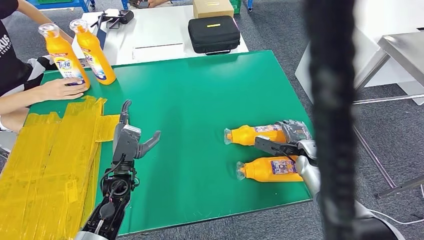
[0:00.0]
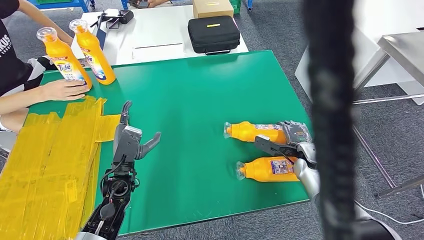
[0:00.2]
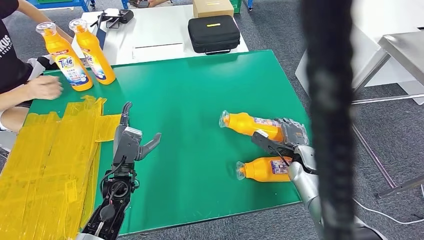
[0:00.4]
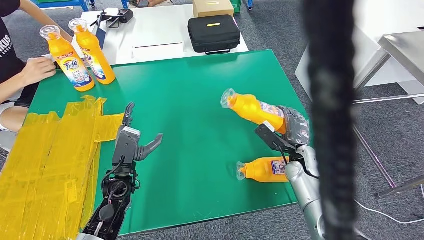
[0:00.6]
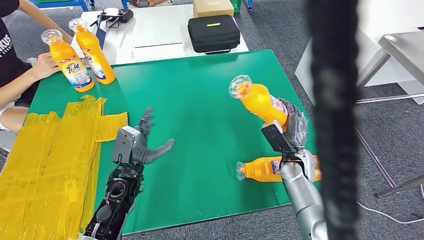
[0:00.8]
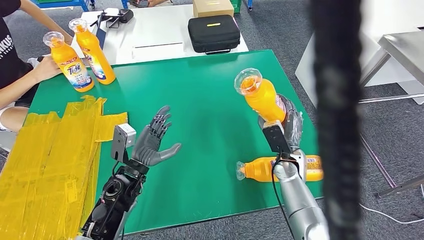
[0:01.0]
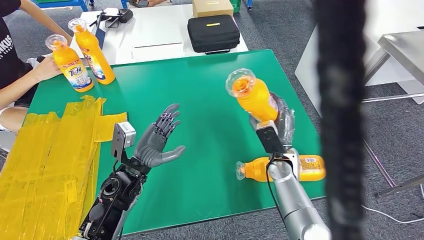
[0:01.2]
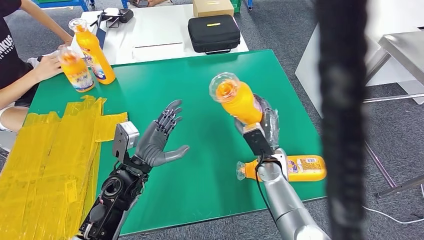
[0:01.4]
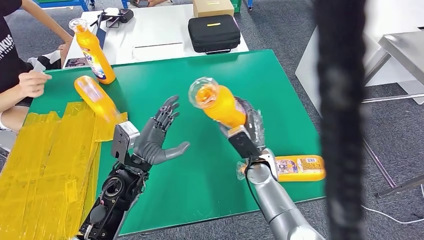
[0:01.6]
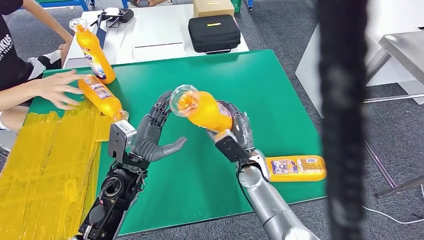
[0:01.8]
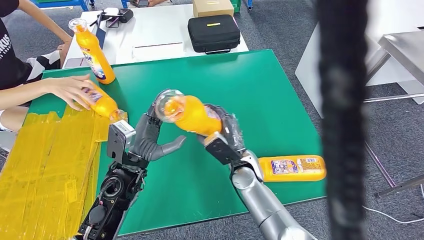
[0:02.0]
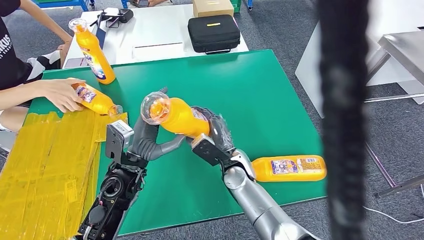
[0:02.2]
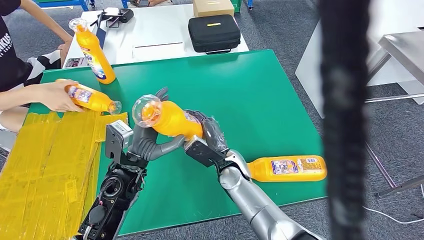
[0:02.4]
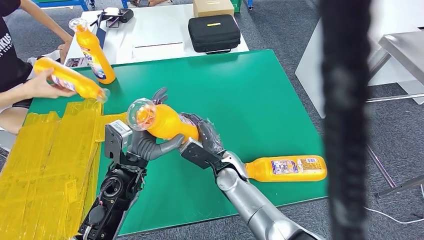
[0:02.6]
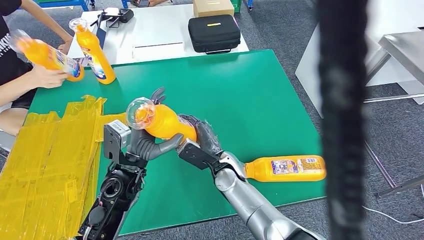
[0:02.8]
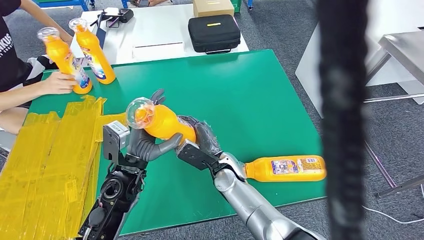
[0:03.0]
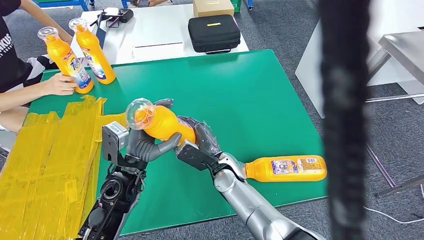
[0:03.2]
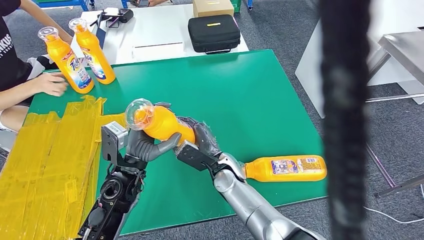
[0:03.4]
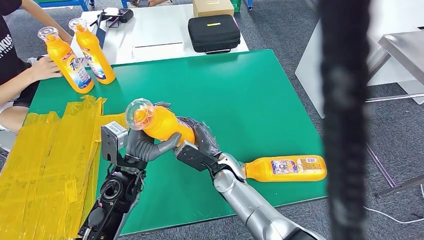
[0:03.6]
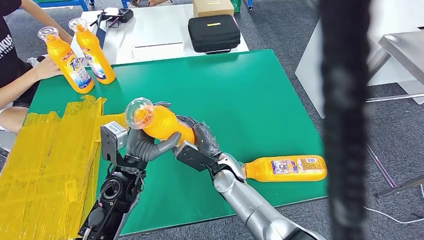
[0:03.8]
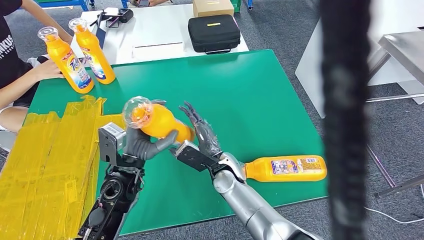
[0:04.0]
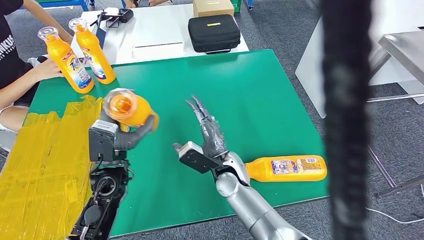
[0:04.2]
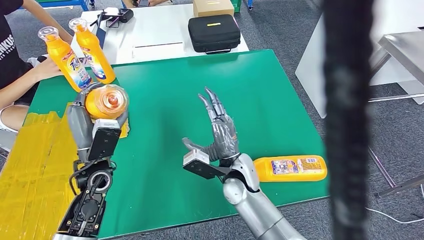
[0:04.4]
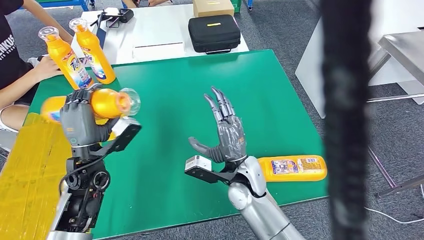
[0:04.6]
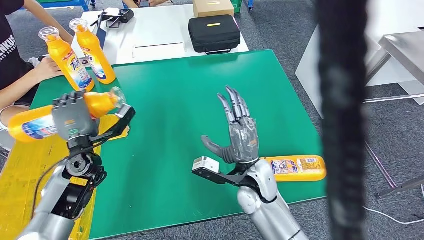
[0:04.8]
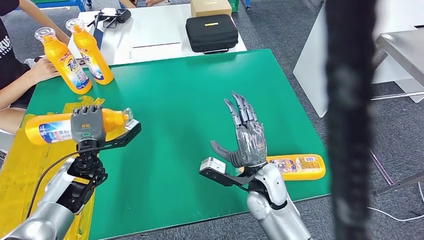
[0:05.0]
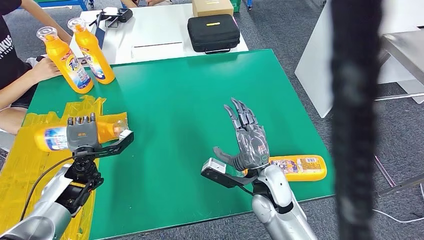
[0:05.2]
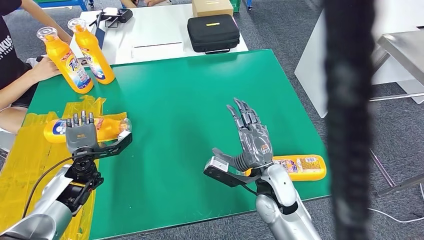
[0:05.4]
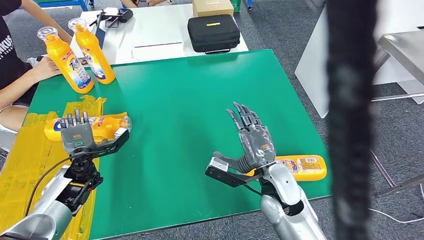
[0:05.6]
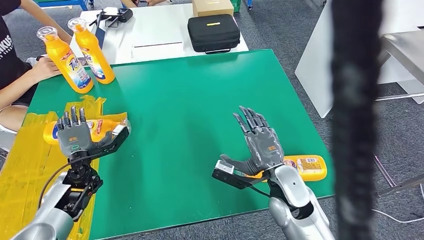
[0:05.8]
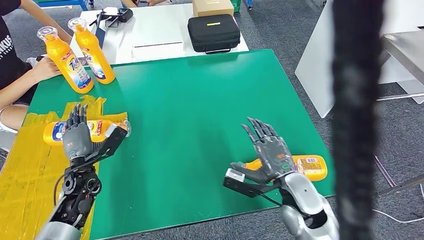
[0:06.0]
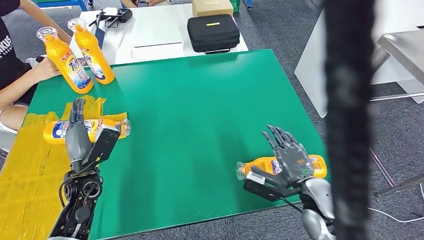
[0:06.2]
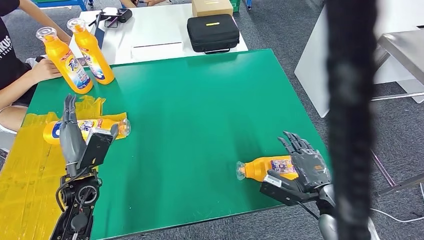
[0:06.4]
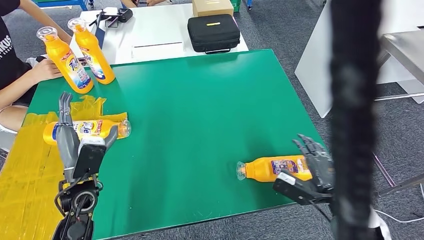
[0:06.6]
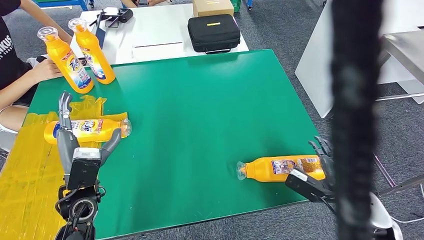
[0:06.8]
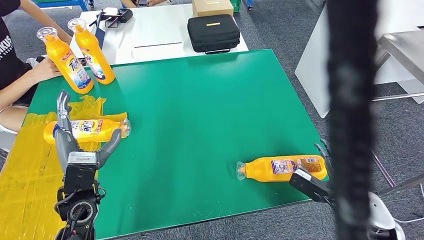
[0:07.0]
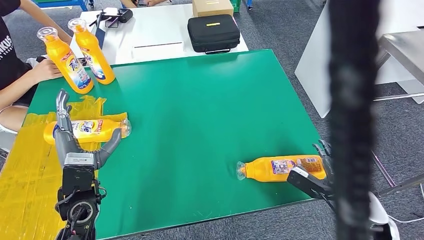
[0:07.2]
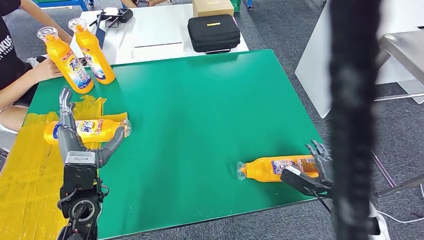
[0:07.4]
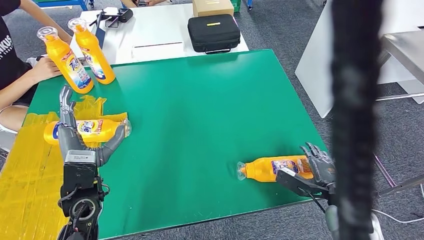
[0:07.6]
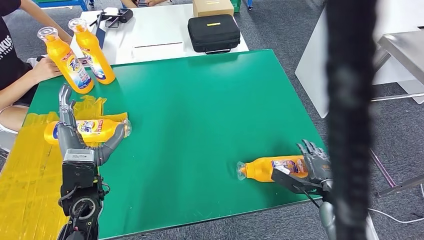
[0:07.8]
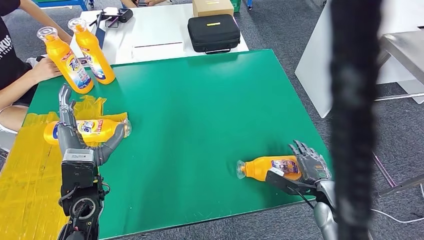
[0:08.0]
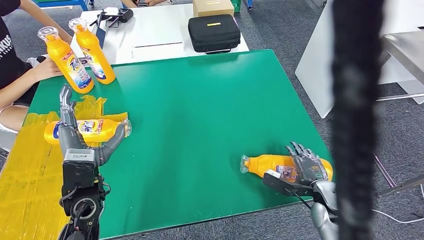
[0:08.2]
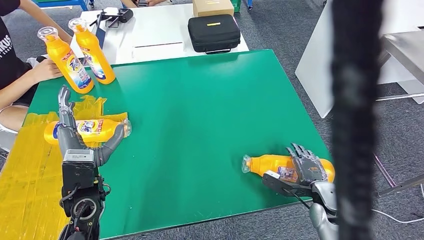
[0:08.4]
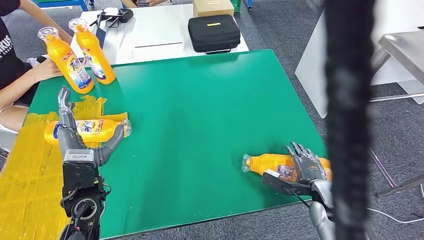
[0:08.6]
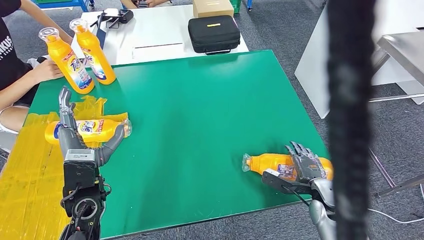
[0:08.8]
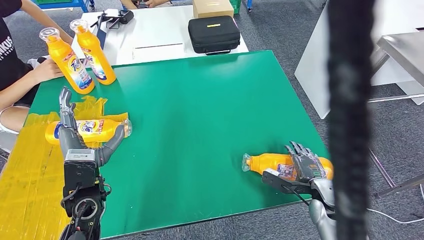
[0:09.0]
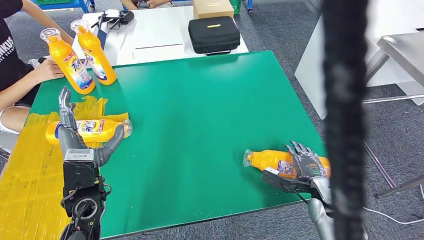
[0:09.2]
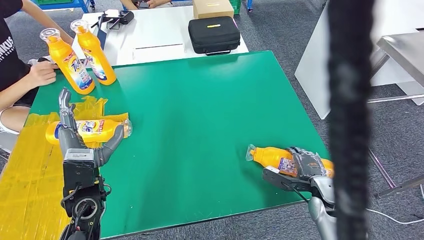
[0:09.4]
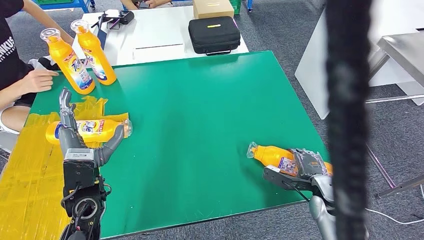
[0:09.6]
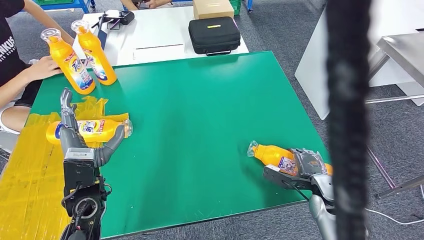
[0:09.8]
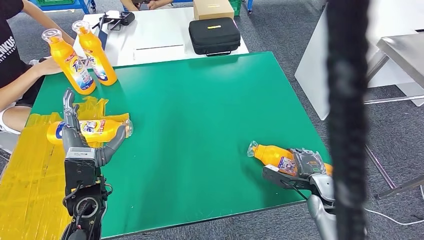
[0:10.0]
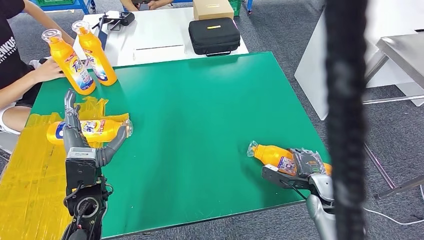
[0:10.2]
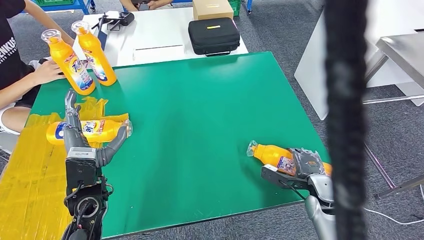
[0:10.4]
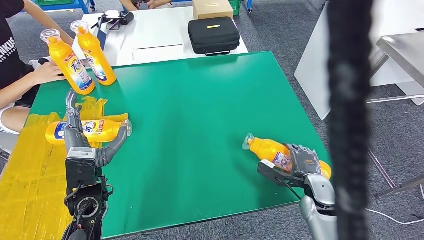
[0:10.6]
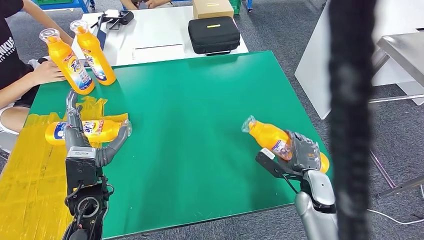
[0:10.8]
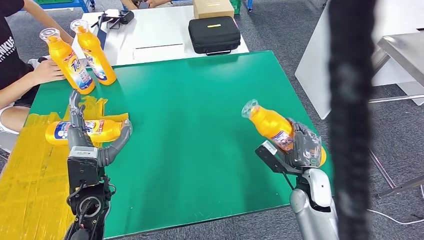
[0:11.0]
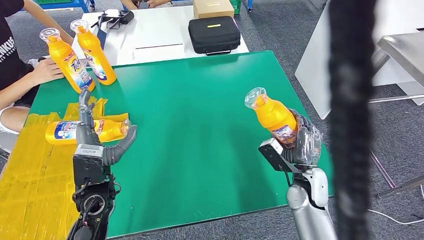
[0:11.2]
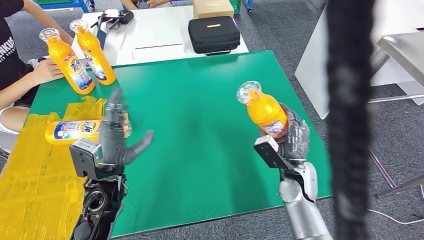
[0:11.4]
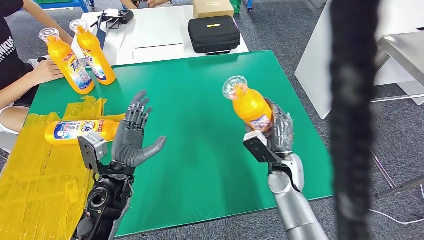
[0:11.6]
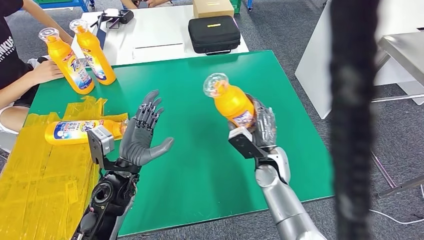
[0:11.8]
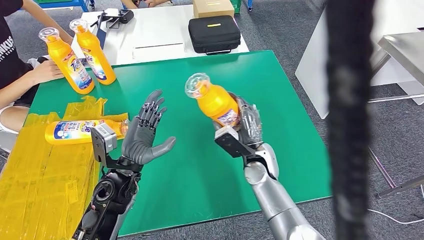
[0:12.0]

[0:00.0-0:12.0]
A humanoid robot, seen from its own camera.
Step, 0:00.0 to 0:02.2: Pick up the bottle from the table.
Step, 0:02.4 to 0:05.8: Flip the bottle to face forward.
Step, 0:06.0 to 0:11.6: Pick up the bottle from the table.
0:01.6 to 0:03.0: The right hand heads to the left, covering approximately 10 cm.
0:06.0 to 0:07.6: The left hand is displaced upward, backward and to the right by some 15 cm. Meanwhile the right hand heads to the right, covering about 15 cm.
0:07.6 to 0:10.4: The hands stay close to where they were, moving slightly.

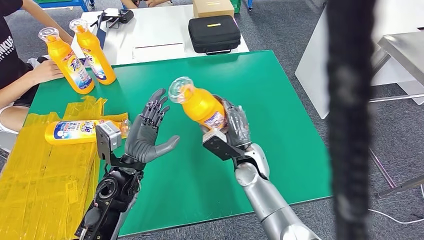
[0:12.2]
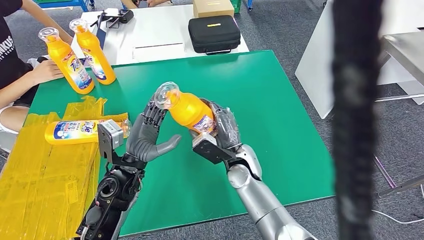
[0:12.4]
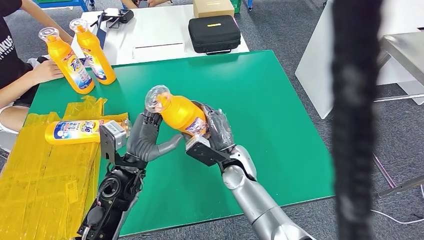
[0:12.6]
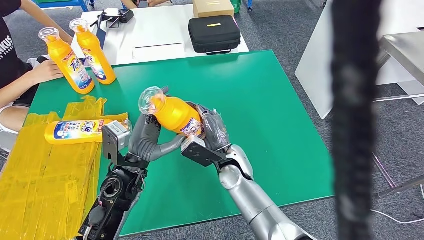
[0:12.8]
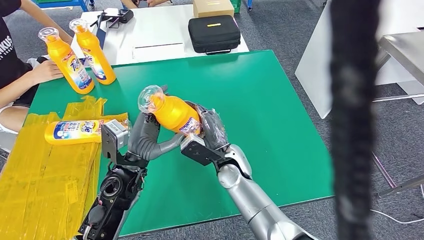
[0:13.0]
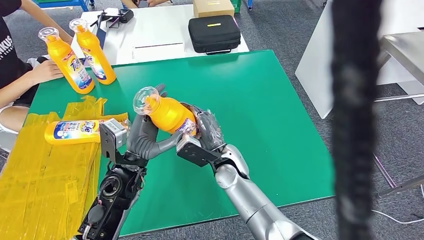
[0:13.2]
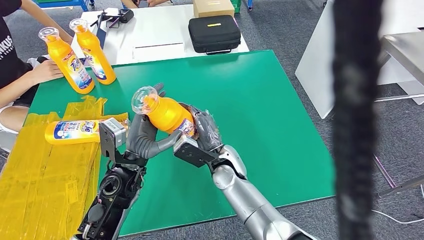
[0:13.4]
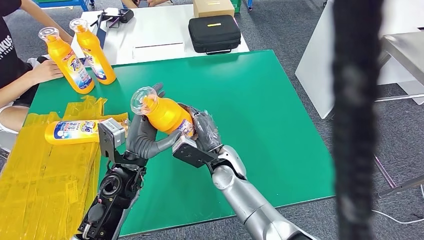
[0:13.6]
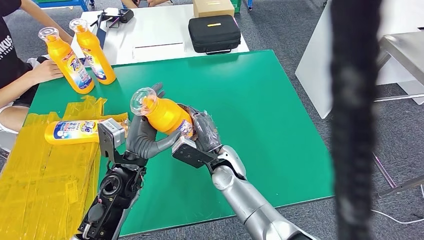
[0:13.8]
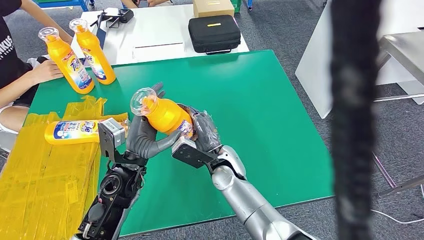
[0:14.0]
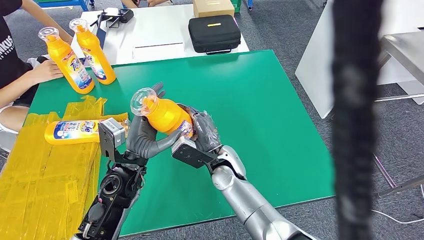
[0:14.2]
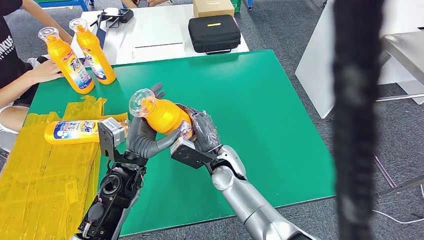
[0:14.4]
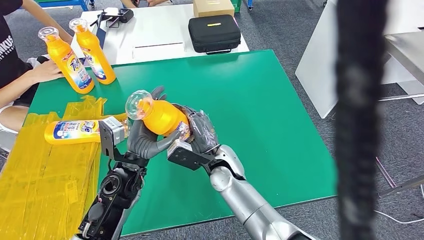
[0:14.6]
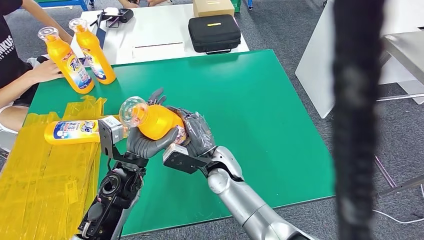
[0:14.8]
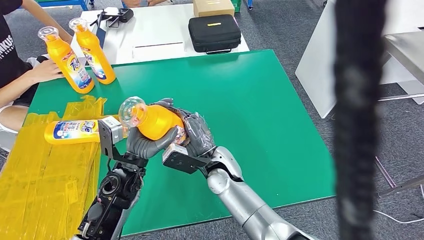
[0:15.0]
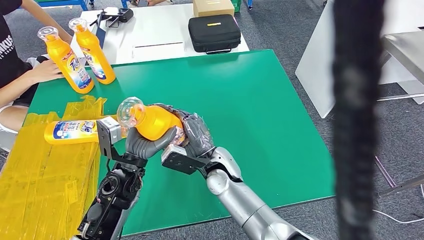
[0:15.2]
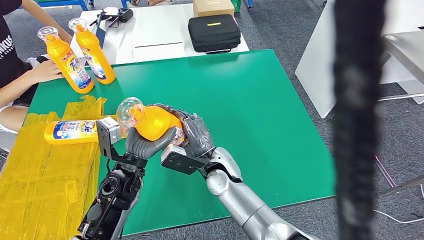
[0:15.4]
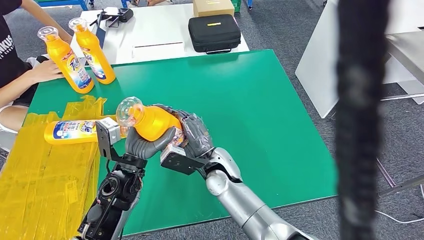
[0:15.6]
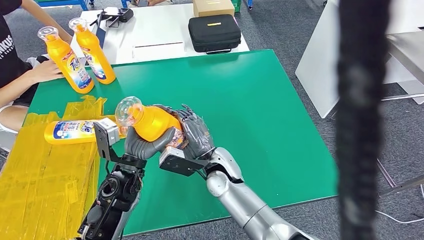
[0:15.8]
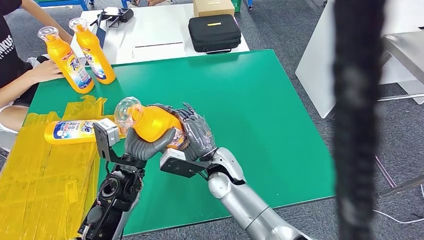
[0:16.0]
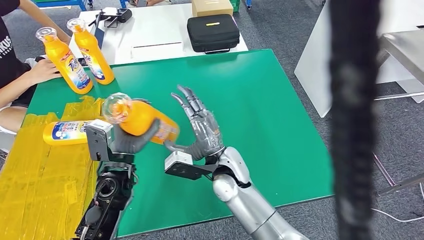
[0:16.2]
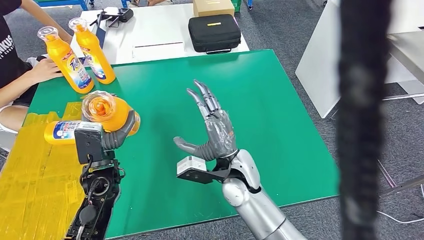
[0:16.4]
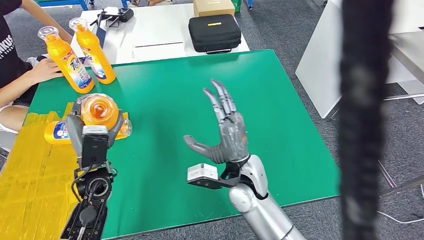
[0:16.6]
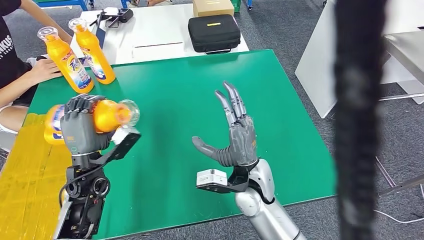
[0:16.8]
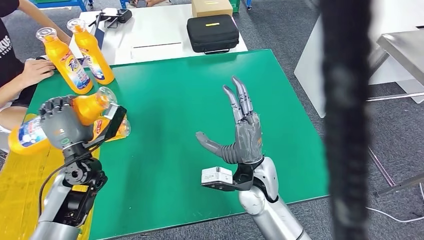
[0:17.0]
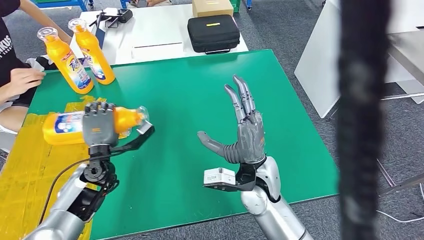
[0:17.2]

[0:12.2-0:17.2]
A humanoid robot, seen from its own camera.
Step, 0:12.2 to 0:17.2: Flip the bottle to face forward.
0:12.2 to 0:13.8: The right hand is displaced to the left by about 5 cm.
0:13.8 to 0:15.6: There are only small adjustments of the hands.
